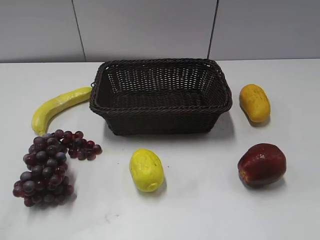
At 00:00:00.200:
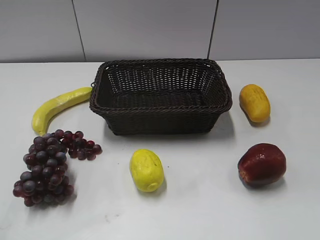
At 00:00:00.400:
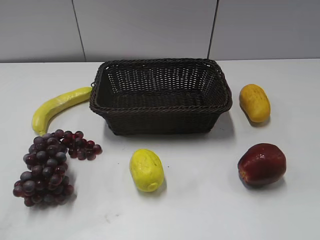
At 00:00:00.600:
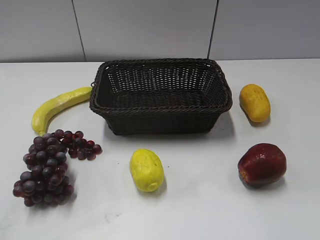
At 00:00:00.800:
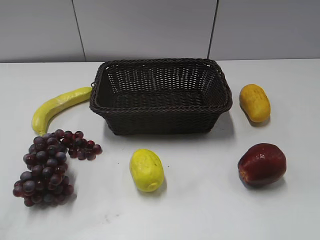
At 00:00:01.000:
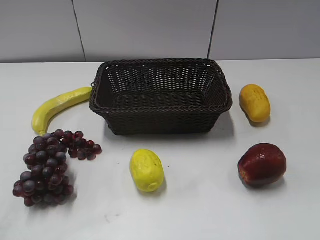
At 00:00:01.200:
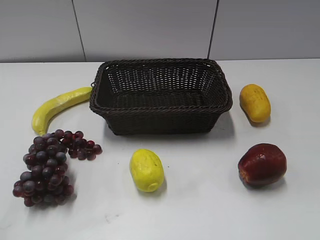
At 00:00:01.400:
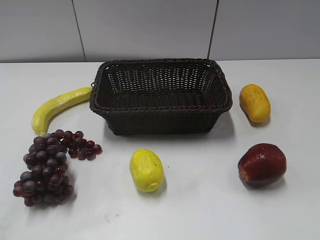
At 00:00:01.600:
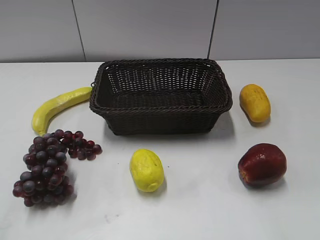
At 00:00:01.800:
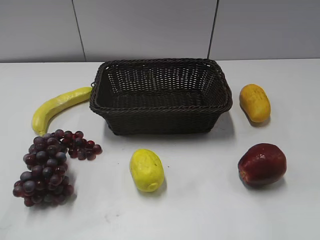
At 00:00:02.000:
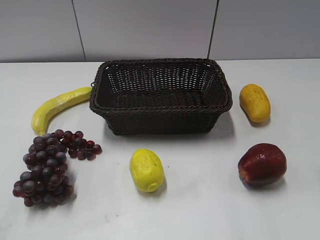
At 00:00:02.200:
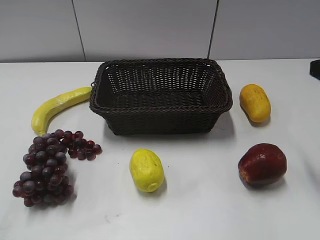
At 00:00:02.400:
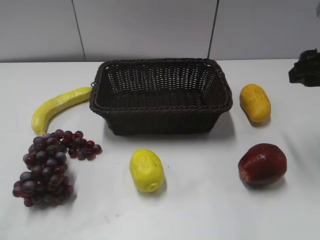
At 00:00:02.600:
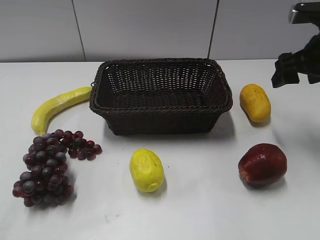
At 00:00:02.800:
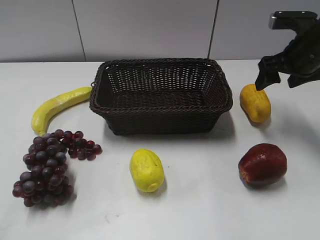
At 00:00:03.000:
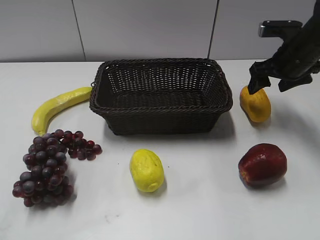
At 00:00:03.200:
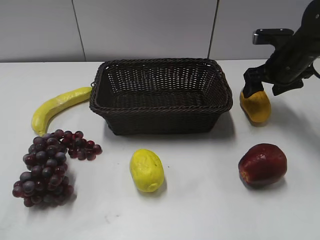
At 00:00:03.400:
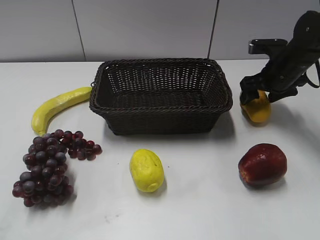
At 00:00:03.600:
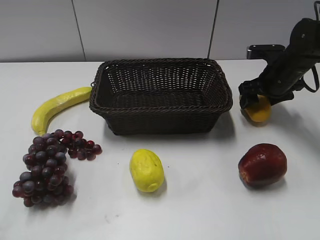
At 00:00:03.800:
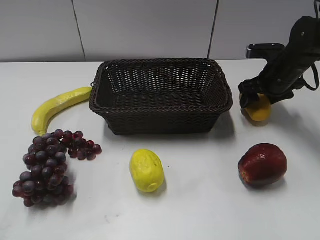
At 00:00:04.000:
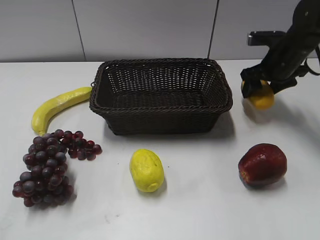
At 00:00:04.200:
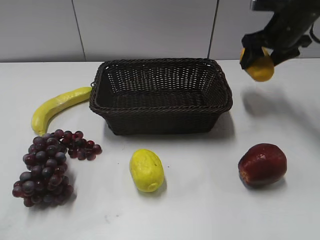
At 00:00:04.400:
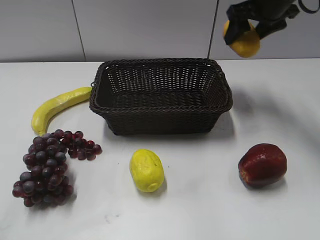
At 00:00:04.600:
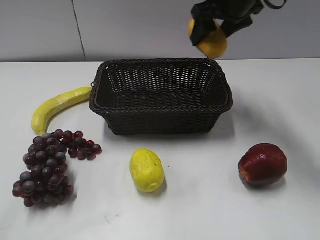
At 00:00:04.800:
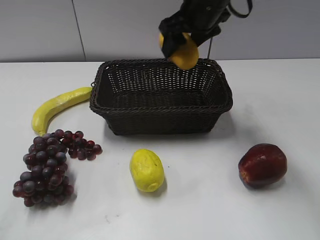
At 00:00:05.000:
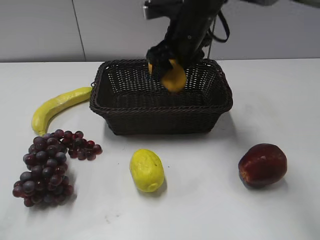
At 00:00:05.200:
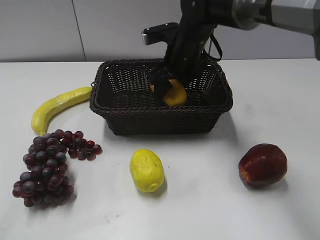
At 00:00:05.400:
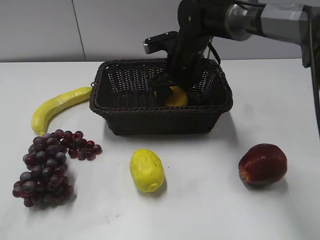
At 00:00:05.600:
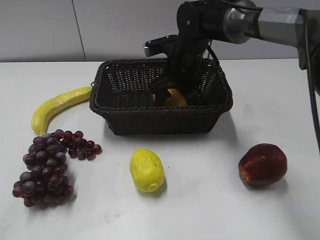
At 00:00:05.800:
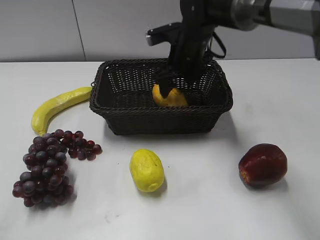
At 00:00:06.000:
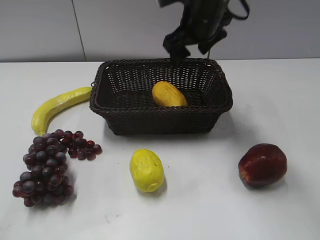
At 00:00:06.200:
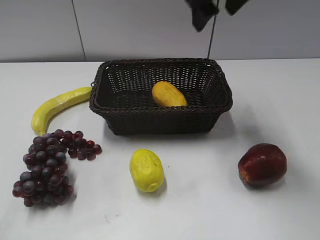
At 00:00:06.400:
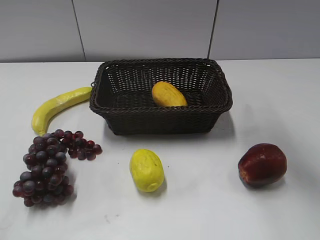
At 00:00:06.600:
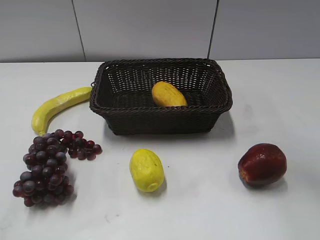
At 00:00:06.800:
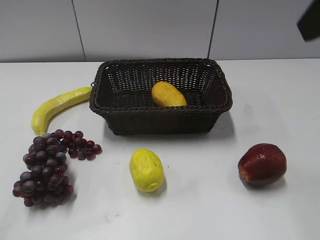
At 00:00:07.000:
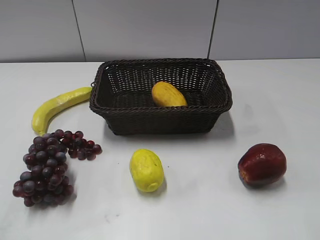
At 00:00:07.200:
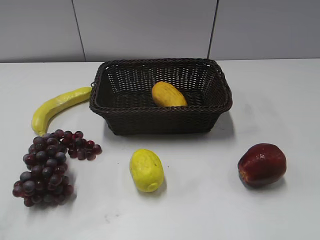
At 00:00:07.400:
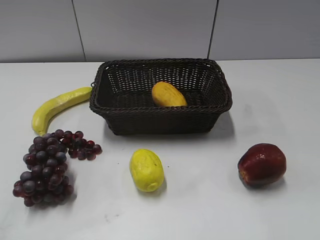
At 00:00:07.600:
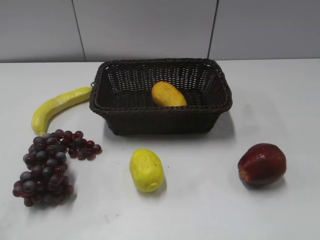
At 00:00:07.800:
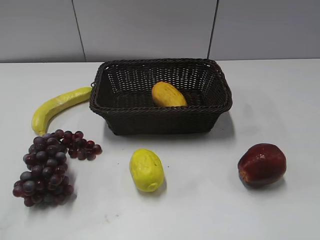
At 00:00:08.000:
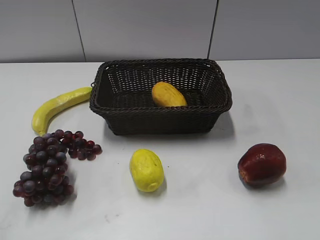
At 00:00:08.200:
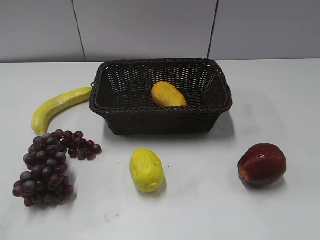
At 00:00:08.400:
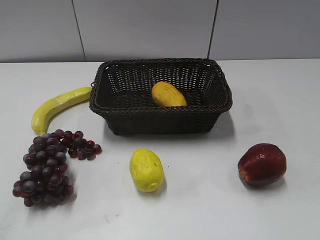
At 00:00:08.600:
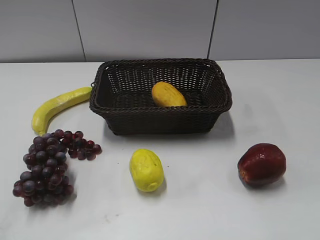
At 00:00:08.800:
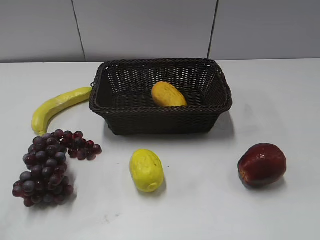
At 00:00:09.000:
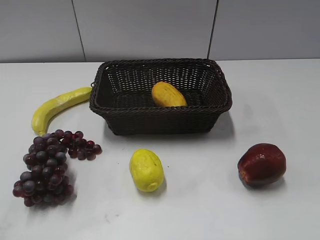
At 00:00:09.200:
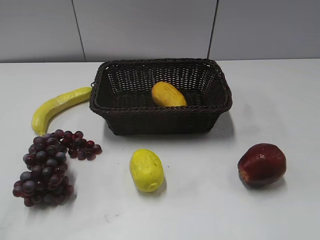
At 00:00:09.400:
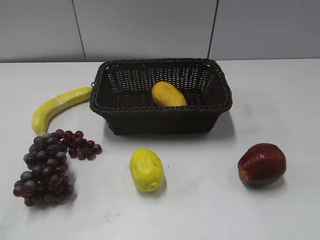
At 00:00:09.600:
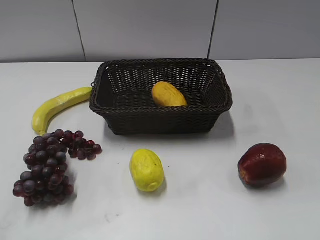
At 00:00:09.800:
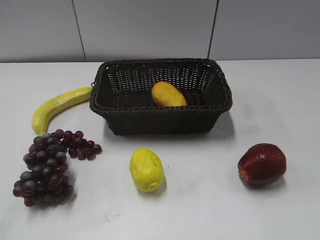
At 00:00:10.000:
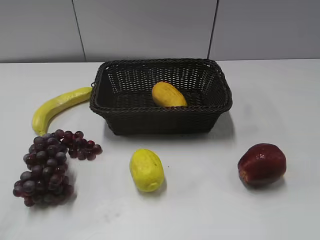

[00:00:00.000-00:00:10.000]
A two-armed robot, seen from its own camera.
Step, 00:00:02.200 to 00:00:03.600: Grasp the mango with right gripper.
Step, 00:00:03.800 to 00:00:05.600: Place the mango in the basket with right gripper.
00:00:01.400 to 00:00:02.800: The right gripper goes approximately 40 cm forward, and opens up.
00:00:02.800 to 00:00:04.200: The right gripper is displaced forward by some 5 cm, travels downward and back again, approximately 10 cm each way, and closes.
00:00:04.200 to 00:00:05.800: The right gripper heads to the left, covering about 20 cm, and opens.
00:00:05.800 to 00:00:07.200: The right gripper moves backward, to the right and upward, approximately 40 cm, and closes.

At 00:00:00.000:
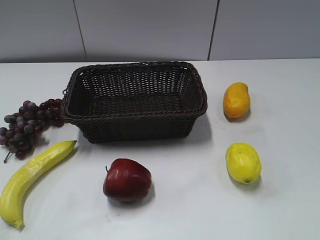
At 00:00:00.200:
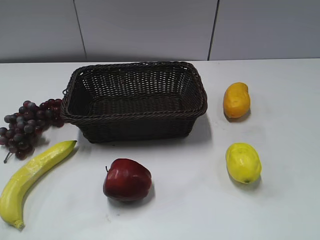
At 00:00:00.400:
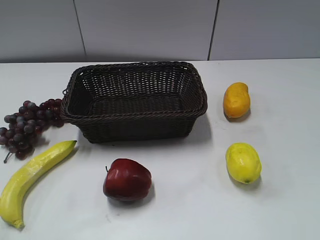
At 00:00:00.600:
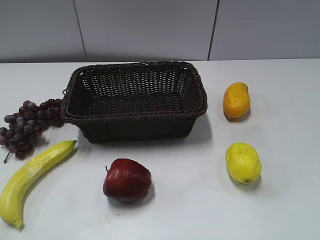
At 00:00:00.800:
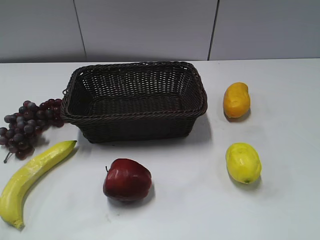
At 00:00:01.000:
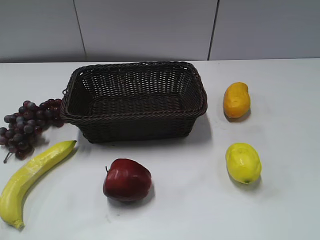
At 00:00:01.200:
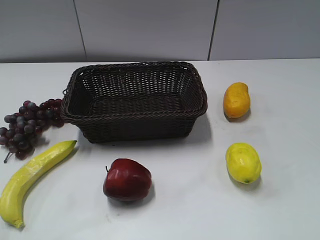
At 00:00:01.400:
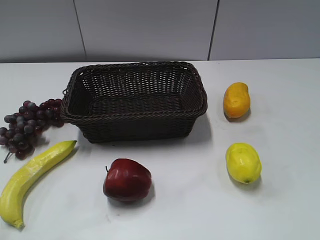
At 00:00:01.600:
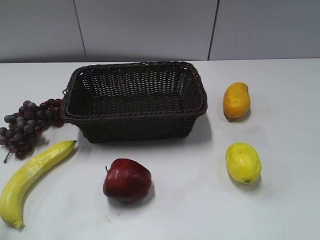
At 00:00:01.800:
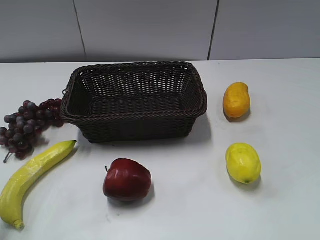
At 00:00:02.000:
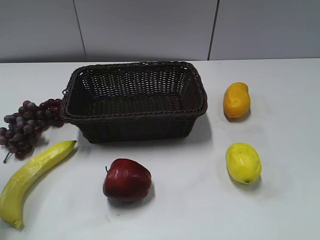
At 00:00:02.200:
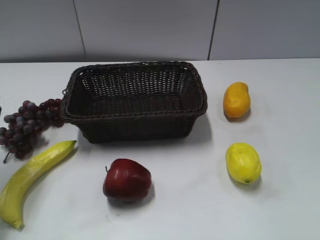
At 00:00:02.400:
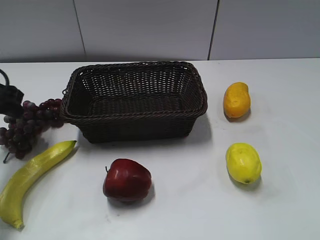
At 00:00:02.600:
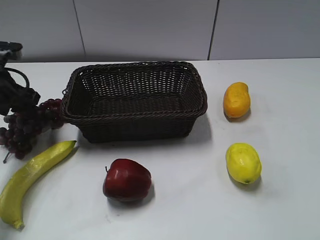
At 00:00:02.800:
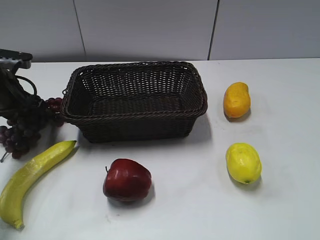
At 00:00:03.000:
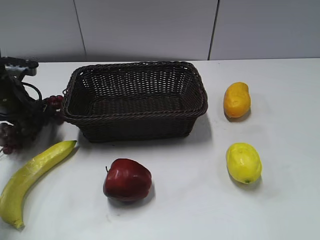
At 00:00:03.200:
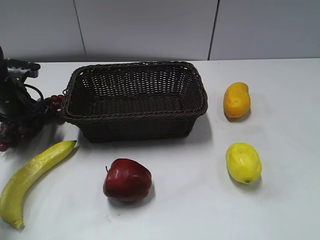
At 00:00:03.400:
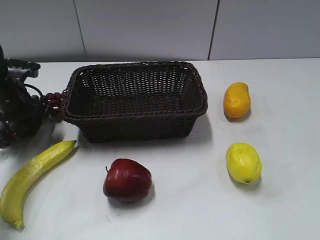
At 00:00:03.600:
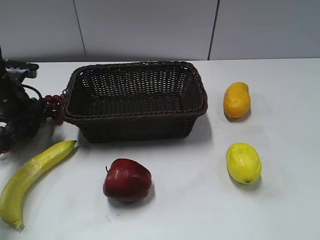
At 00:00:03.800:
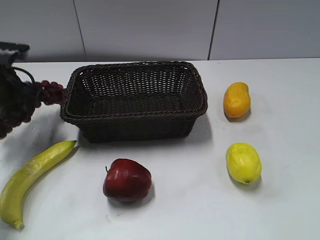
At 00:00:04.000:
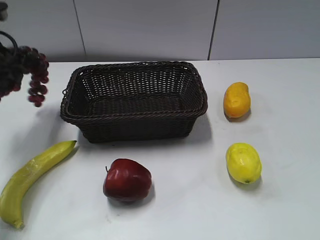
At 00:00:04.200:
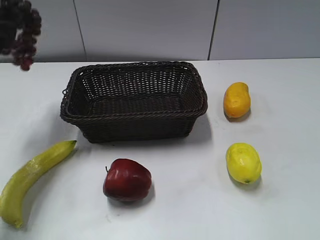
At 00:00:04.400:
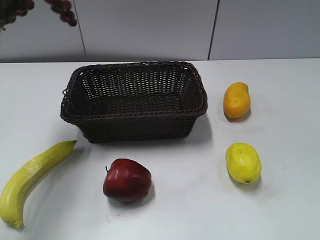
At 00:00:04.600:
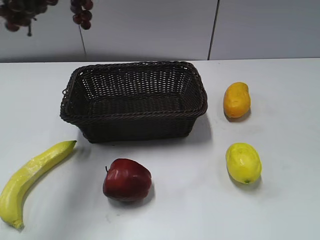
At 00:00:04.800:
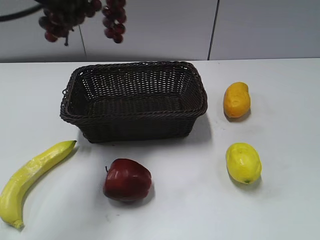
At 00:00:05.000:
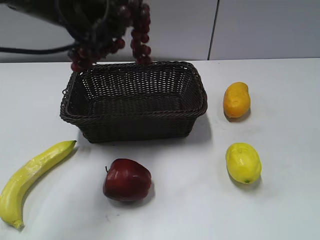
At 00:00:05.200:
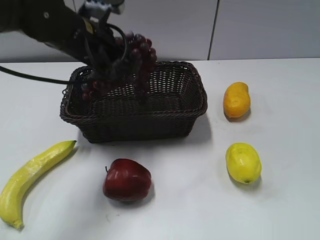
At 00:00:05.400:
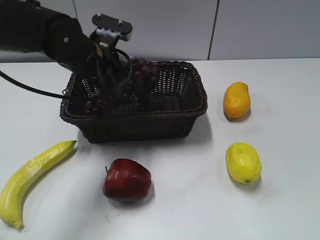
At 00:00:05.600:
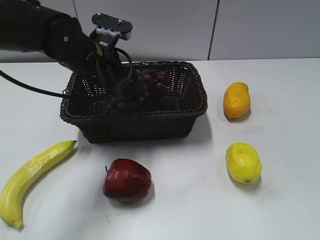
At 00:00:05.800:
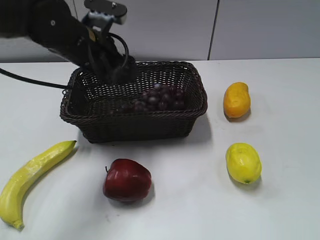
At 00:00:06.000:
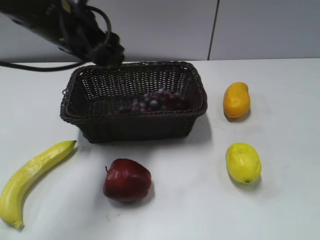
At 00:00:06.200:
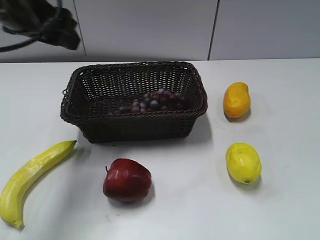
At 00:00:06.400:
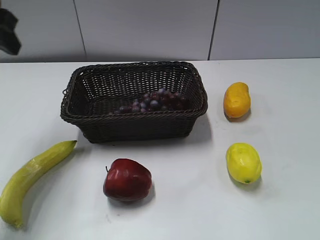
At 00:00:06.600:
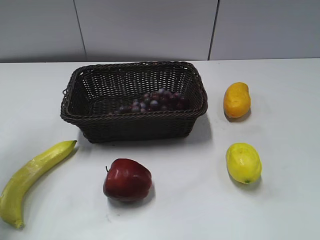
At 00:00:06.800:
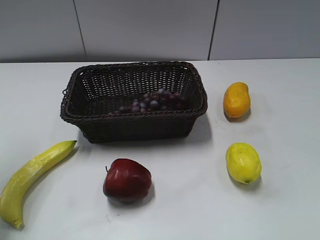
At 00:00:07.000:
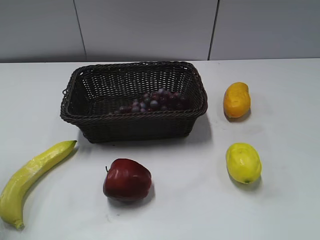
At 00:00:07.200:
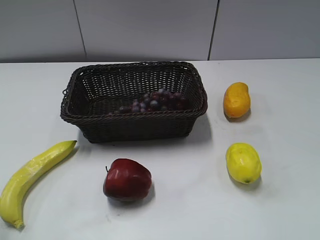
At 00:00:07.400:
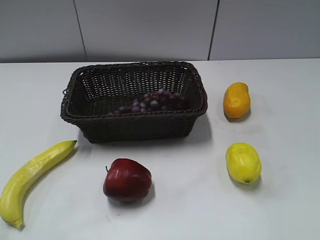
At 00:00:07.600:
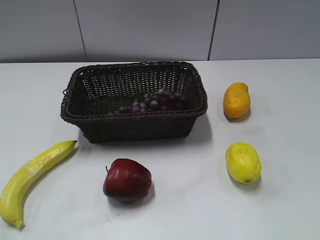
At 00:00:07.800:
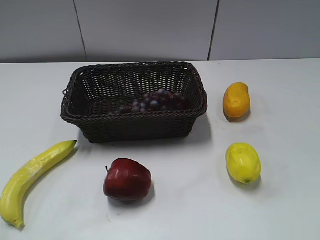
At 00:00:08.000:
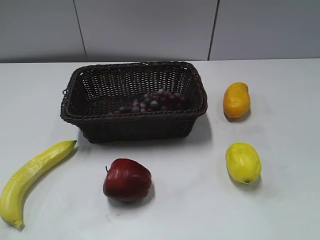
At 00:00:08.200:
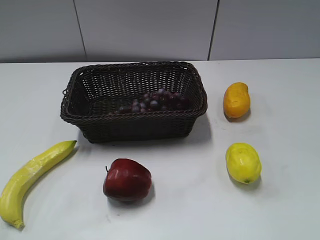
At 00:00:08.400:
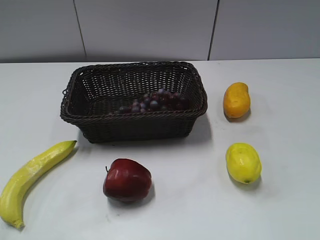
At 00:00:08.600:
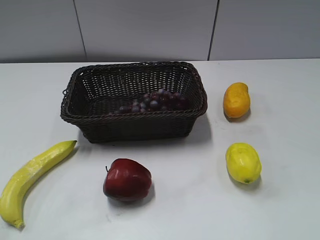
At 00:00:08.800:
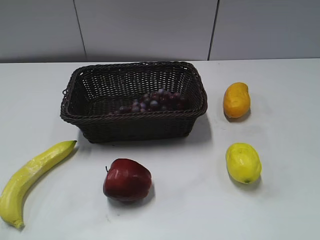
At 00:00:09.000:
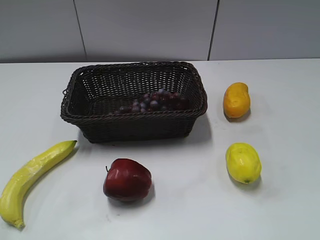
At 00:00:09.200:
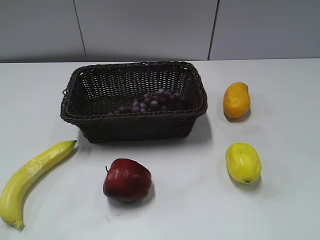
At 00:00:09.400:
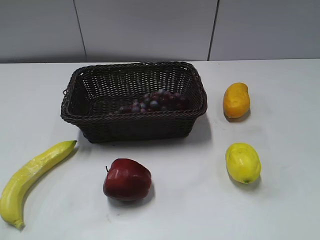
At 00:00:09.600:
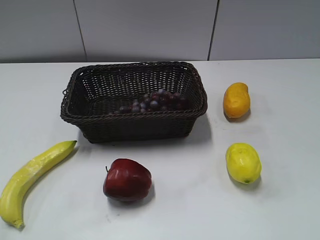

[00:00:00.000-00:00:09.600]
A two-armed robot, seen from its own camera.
Step, 00:00:02.200 to 00:00:03.800: Grasp the grape with left gripper.
Step, 00:00:04.000 to 00:00:05.800: Place the grape in the basket with left gripper.
00:00:01.600 to 00:00:03.200: The left gripper moves forward and downward, roughly 35 cm.
00:00:03.200 to 00:00:04.800: The left gripper goes about 25 cm upward and to the right, and closes up.
00:00:04.800 to 00:00:06.400: The left gripper is displaced to the left by roughly 10 cm, and opens up.
00:00:06.400 to 00:00:08.000: The left gripper shifts roughly 30 cm backward.
